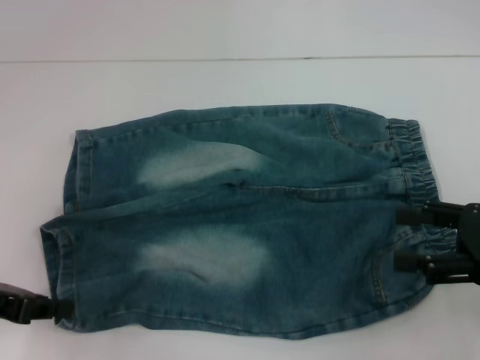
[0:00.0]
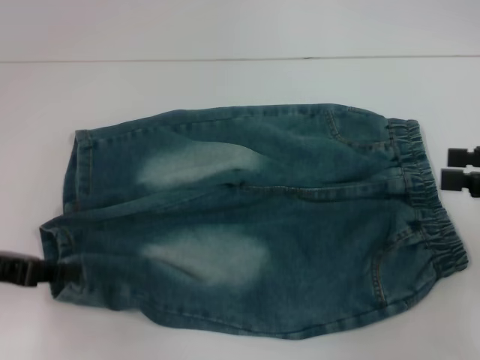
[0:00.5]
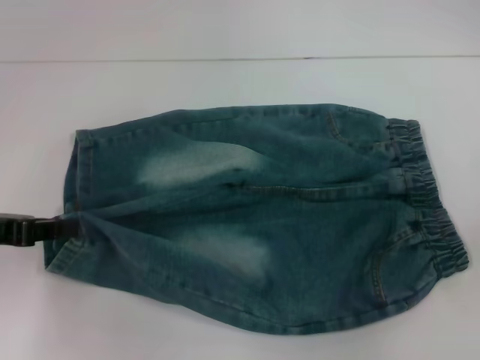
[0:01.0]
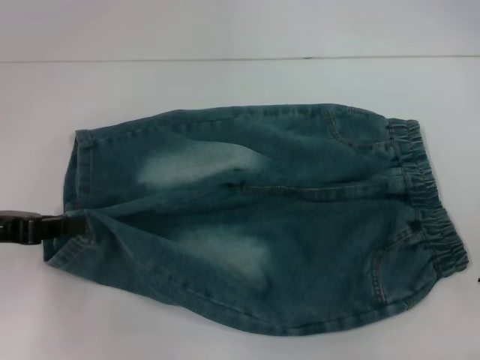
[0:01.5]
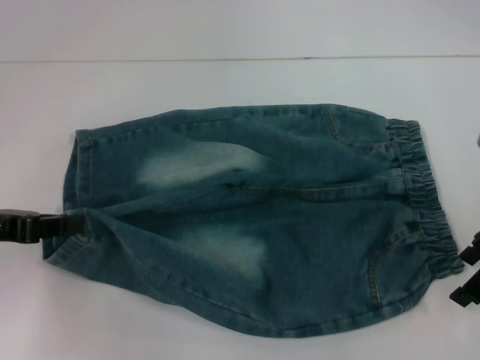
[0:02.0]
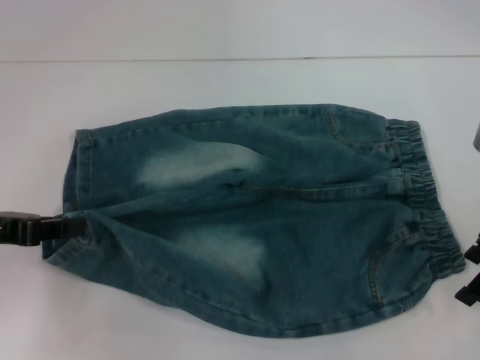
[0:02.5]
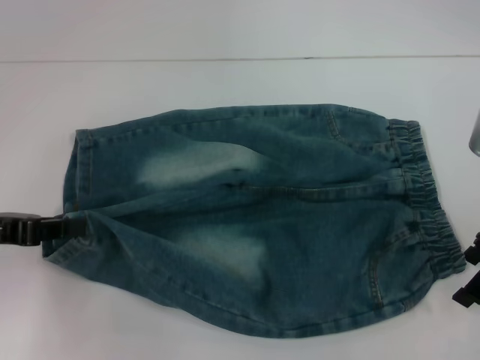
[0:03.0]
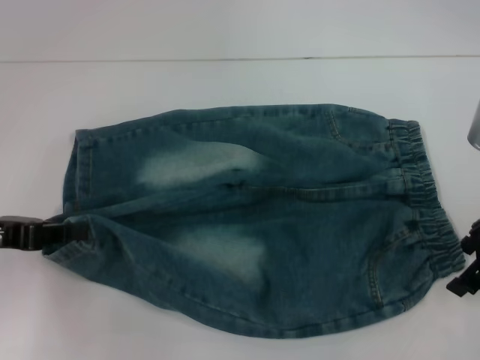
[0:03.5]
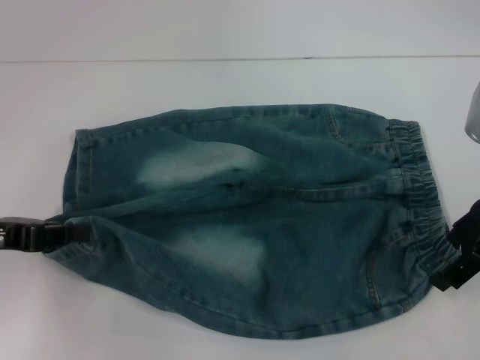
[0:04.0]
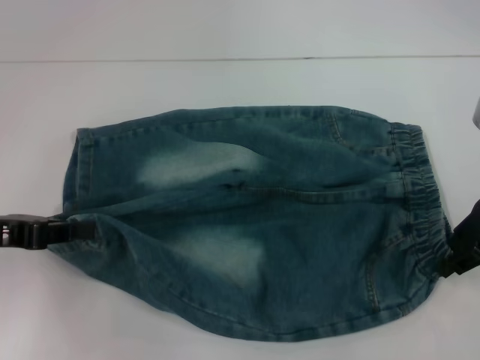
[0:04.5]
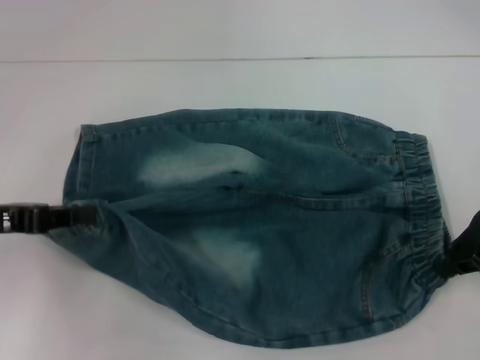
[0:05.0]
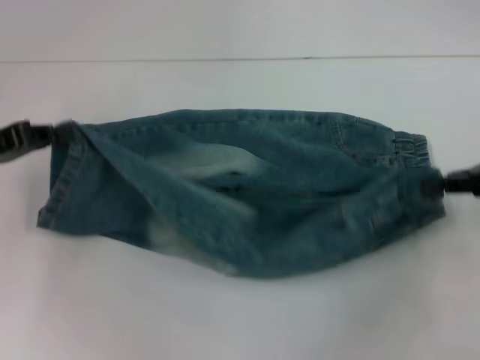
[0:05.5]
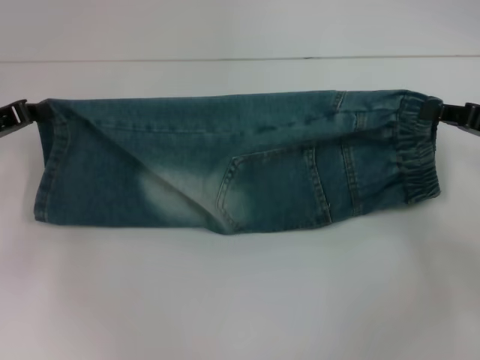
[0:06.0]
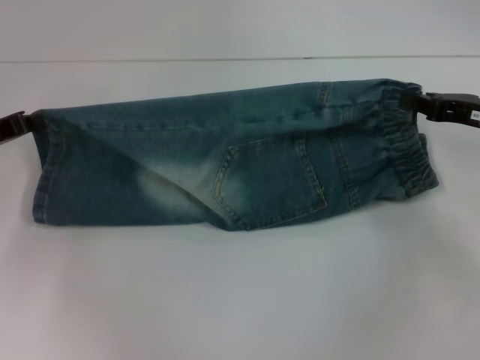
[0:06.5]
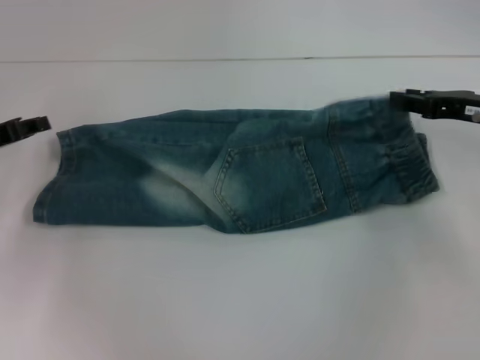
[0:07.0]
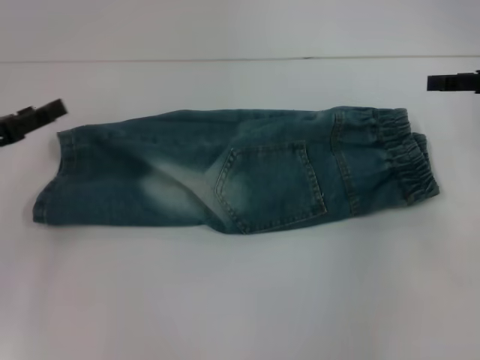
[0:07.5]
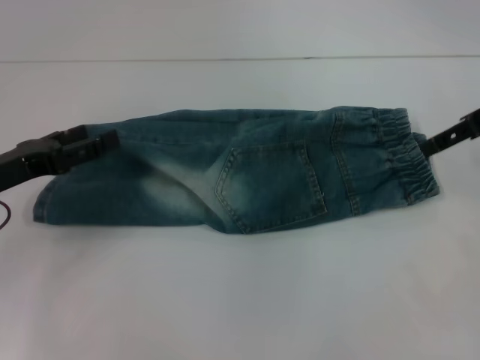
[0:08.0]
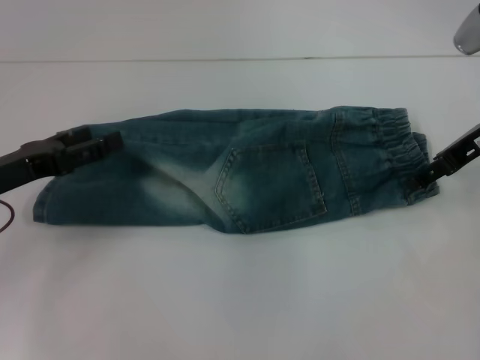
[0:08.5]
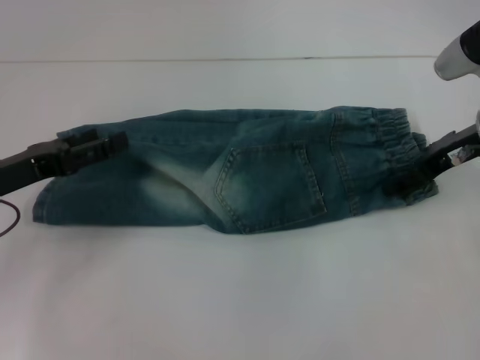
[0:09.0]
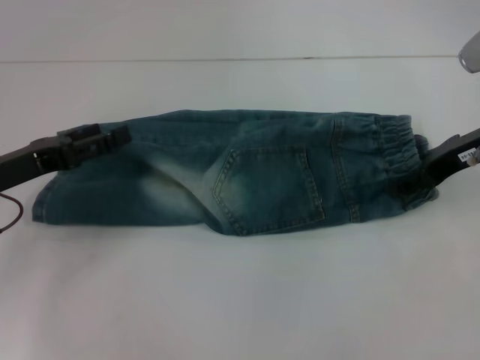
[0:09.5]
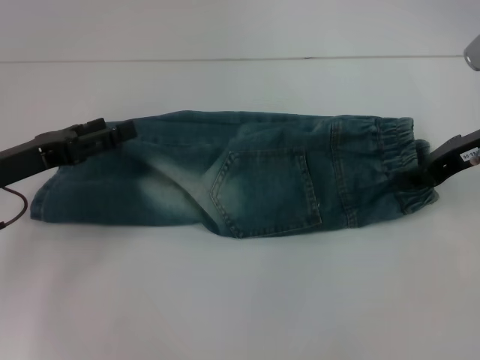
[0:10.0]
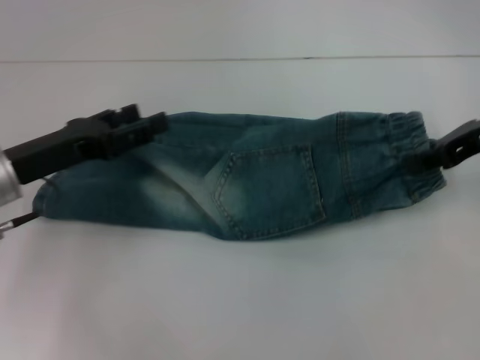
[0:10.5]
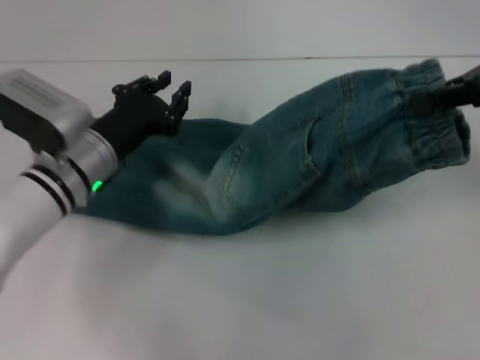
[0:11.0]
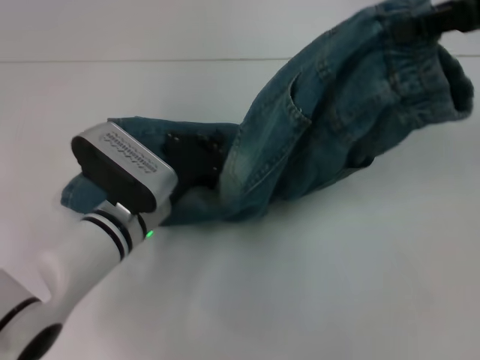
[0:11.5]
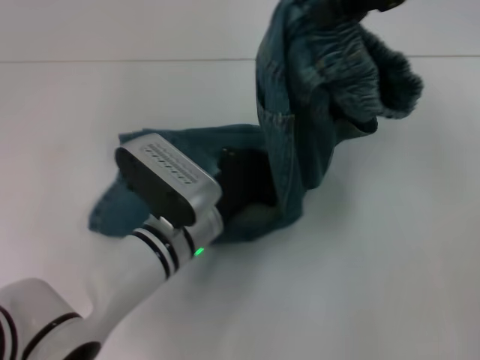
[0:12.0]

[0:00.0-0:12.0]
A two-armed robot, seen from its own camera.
Step, 0:00.5 to 0:04.0: Hold the lower right waistband with your right hand.
Step, 0:05.0 to 0:07.0: Fold upward with your right hand.
Step, 0:07.5 to 0:09.0: Grab the waistband with your right hand.
0:00.0 to 0:02.0: The right gripper shifts roughly 10 cm forward.
0:02.0 to 0:04.0: The grippers stay close to where they were, moving slightly.
0:04.0 to 0:06.0: The right gripper heads to the right, covering some 5 cm, and closes its fingers, while the left gripper heads forward, covering roughly 10 cm.
0:06.0 to 0:08.0: The left gripper moves backward, approximately 5 cm, and opens up. The right gripper is displaced upward and forward by about 10 cm, and opens.
0:08.0 to 0:10.0: The right gripper moves downward, about 5 cm, and closes its fingers.
0:10.0 to 0:12.0: The right gripper is displaced upward by about 15 cm. Meanwhile the left gripper is displaced to the right by roughly 20 cm, and closes.

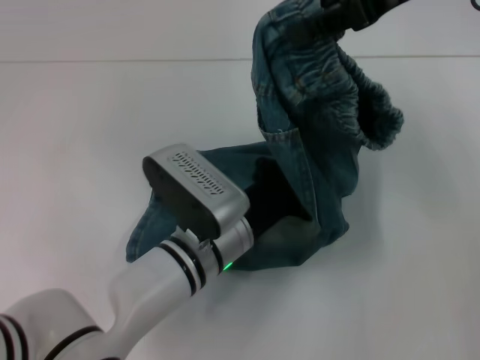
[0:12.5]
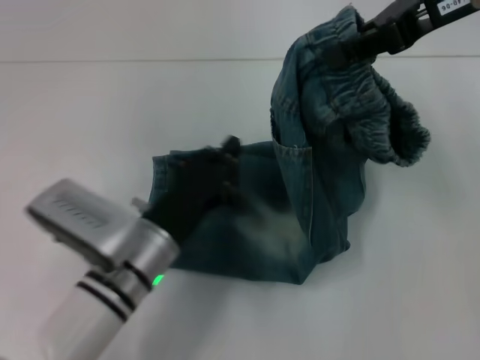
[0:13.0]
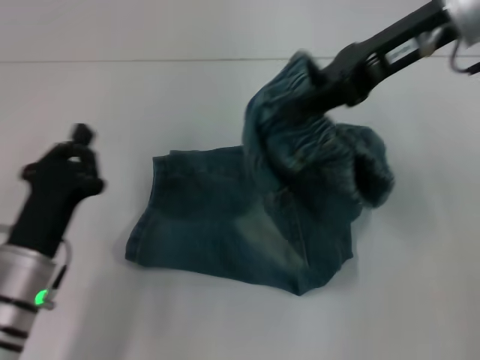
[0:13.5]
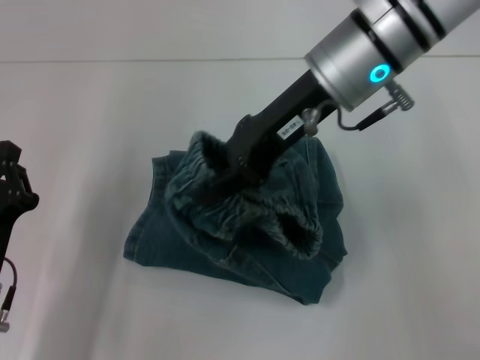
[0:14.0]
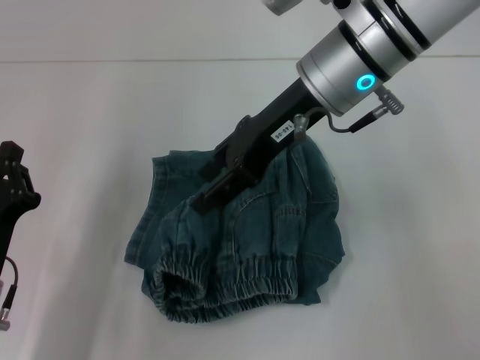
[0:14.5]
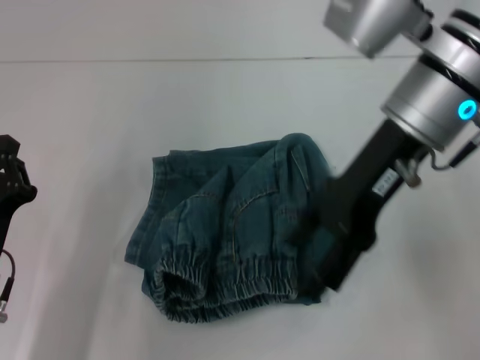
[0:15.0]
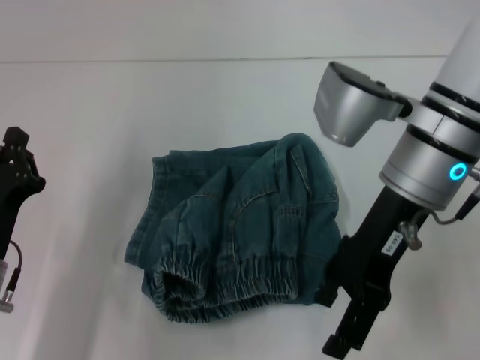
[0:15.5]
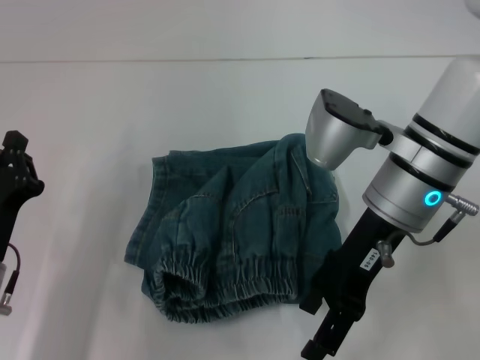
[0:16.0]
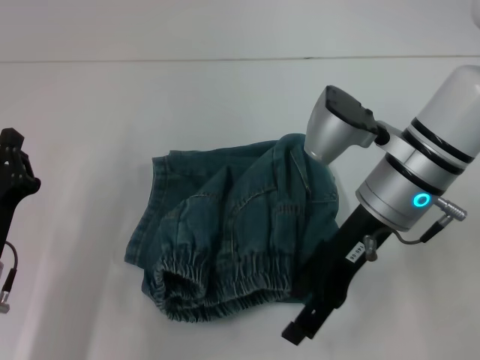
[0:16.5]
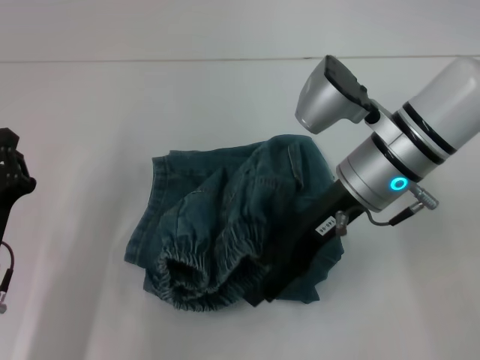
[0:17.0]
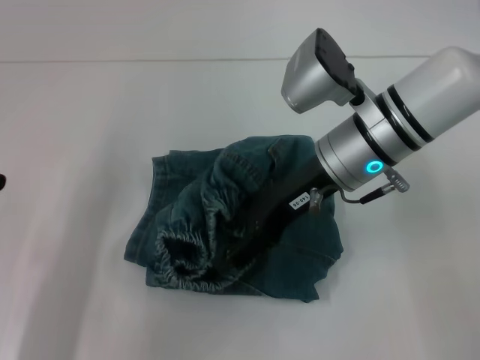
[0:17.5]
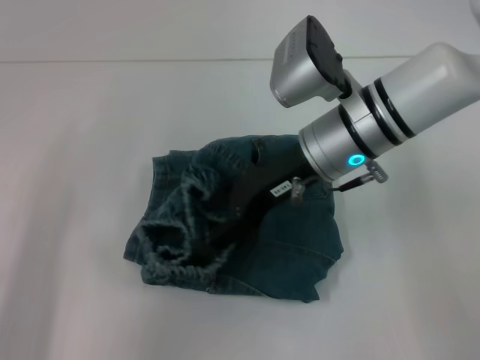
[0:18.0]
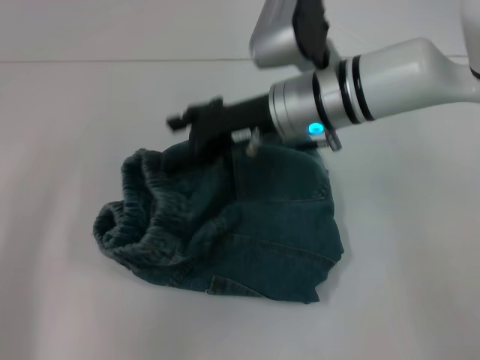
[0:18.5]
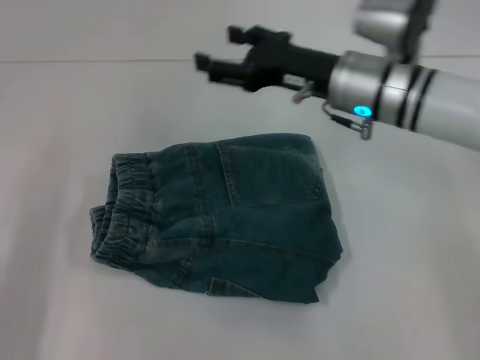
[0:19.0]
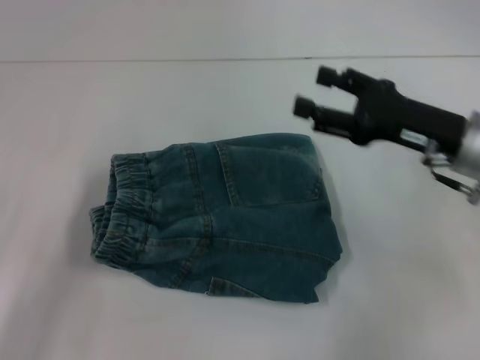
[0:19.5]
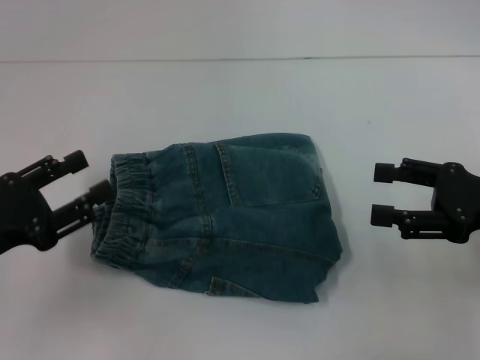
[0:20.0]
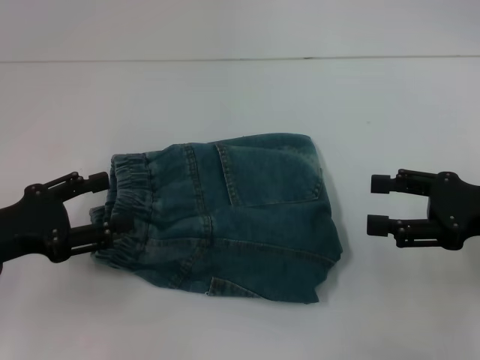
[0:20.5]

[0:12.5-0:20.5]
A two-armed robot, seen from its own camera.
Step, 0:13.0 to 0:14.5: Fold to the left with your right hand.
Step, 0:15.0 to 0:19.0: Adjust the pants with your right hand.
0:12.5 to 0:14.5: The left gripper heads to the left, covering some 20 cm; the right gripper is displaced to the left and downward by roughly 15 cm, and opens.
0:14.5 to 0:16.5: The right gripper goes approximately 10 cm downward, and opens its fingers.
0:16.5 to 0:18.5: The right gripper heads to the left and forward, covering roughly 10 cm, while the left gripper goes some 10 cm to the left.
0:18.5 to 0:20.5: The right gripper goes approximately 25 cm to the right and backward; the left gripper travels forward and upward by about 10 cm, and opens up.
